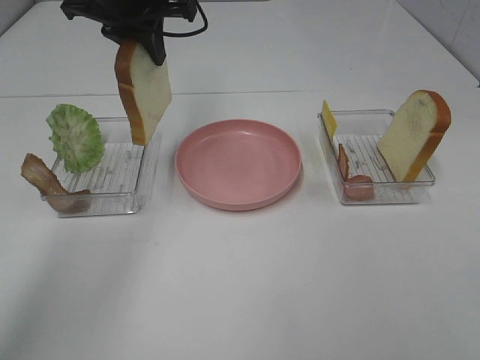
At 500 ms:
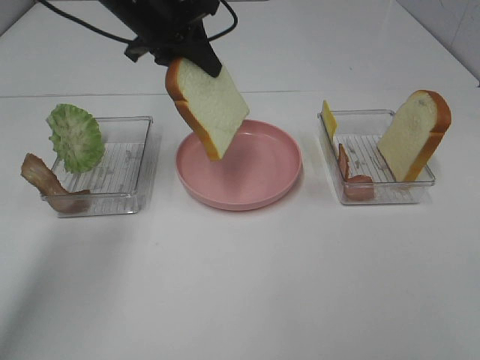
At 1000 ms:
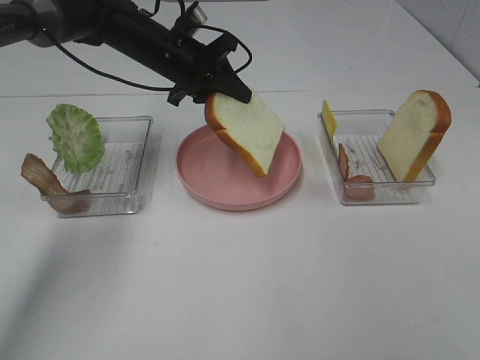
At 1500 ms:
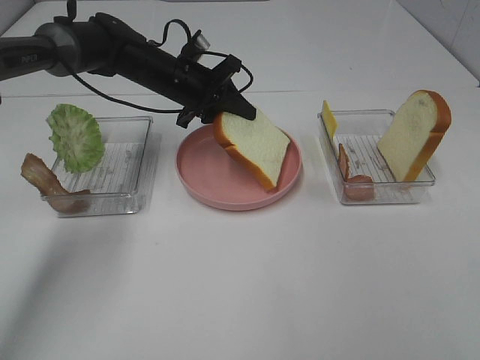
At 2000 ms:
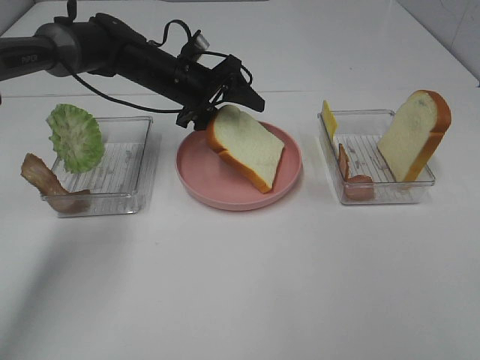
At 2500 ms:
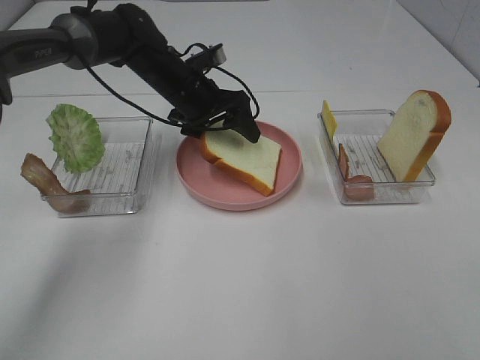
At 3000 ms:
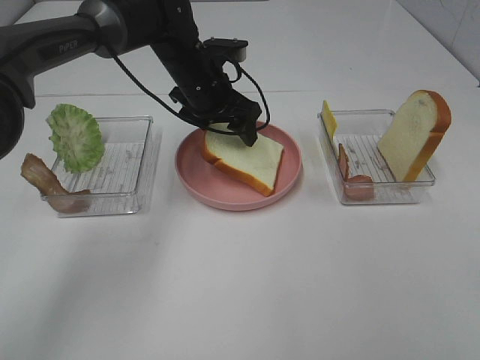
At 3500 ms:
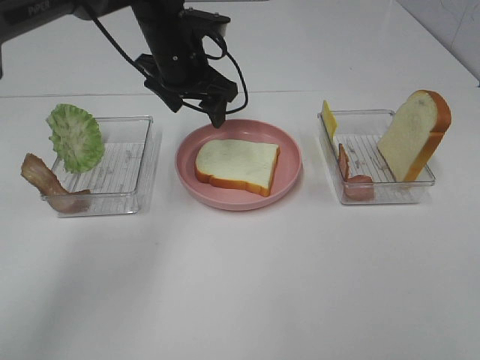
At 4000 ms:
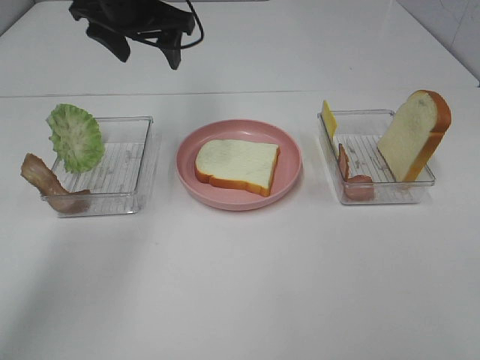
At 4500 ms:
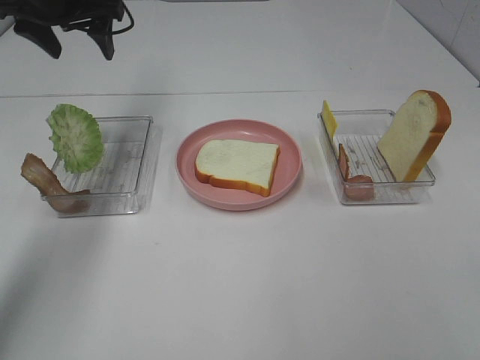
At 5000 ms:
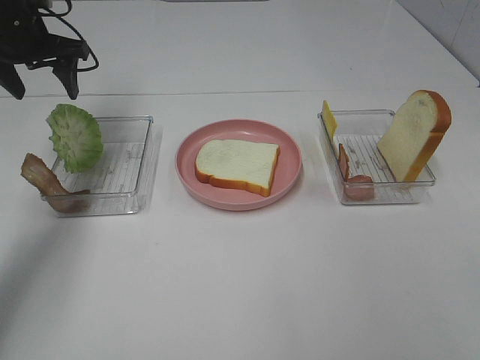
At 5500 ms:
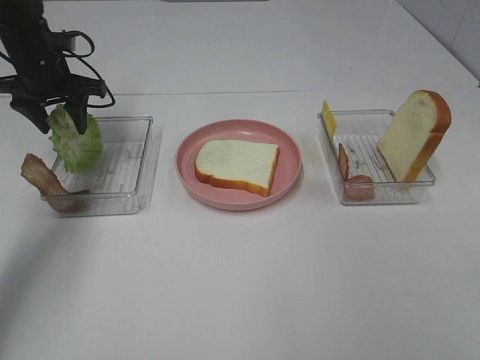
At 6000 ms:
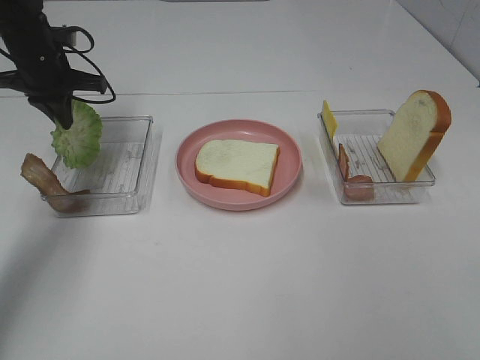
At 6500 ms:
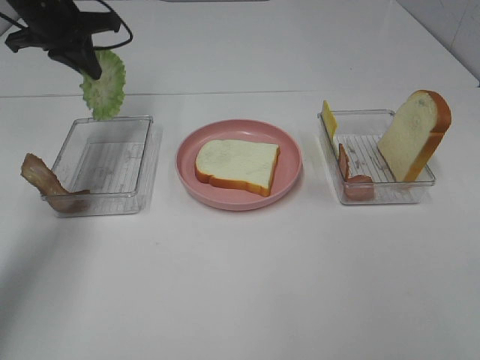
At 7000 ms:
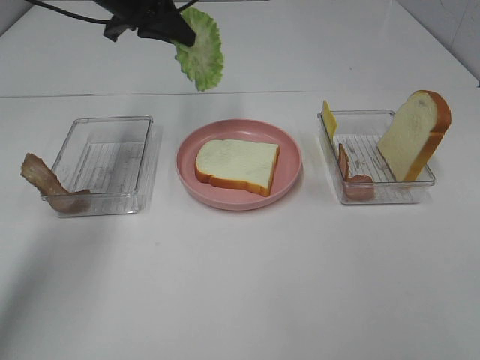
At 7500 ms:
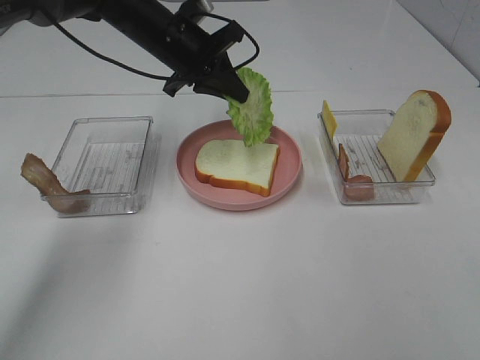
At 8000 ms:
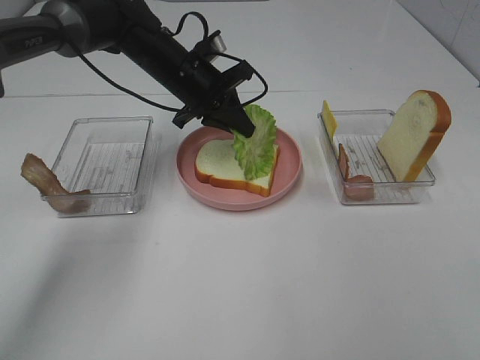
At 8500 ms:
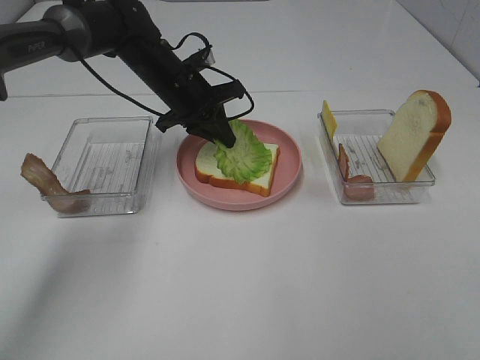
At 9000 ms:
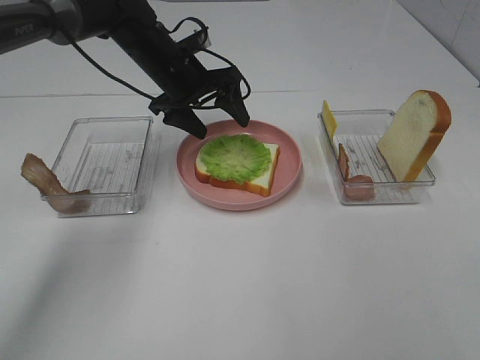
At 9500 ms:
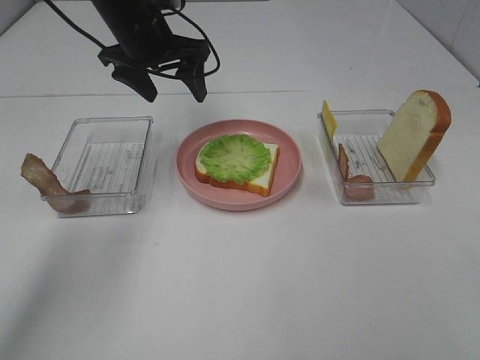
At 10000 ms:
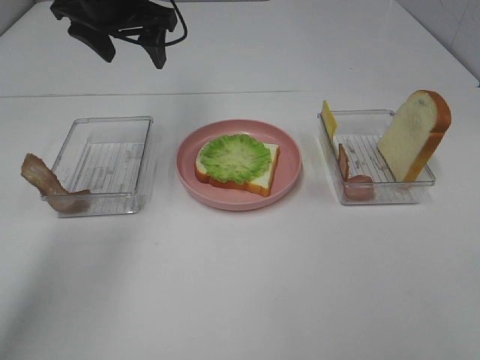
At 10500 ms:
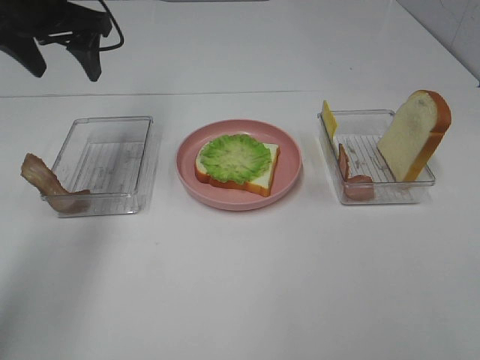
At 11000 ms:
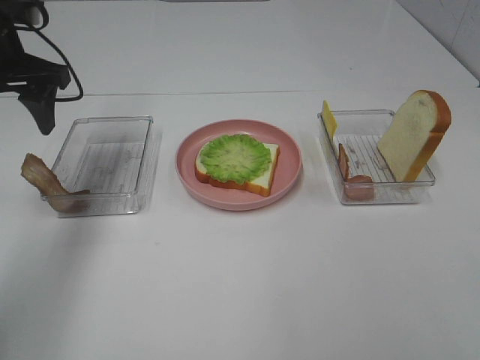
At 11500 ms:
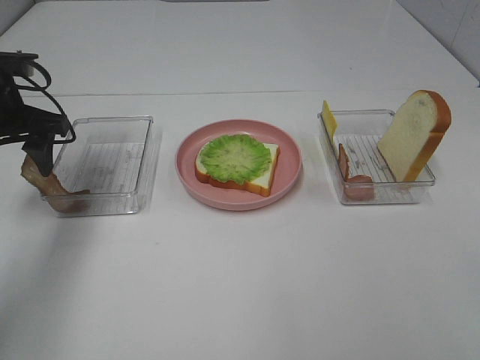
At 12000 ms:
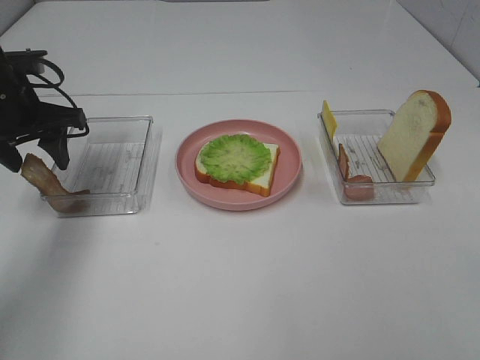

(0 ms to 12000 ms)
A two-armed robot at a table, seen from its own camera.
Task of the whole recording: Make sandwiches.
Step, 0 ms - 3000 ms: Left hand:place the bread slice on the plate.
Step, 3500 ms - 6000 ms: Left hand:grab the lettuce slice.
Step, 6500 ms - 9000 ms: Left hand:place the lettuce slice on the bread slice.
0 ms - 2000 ms: The left gripper moves downward, some 15 cm, and opens up.
2000 ms - 4000 ms: The left gripper is displaced upward by some 15 cm.
4000 ms - 6000 ms: The left gripper travels to the left and downward by roughly 15 cm, and closes.
6000 ms - 8000 ms: The left gripper travels to the right by approximately 20 cm.
8000 ms - 10000 ms: The left gripper travels upward and to the left by some 15 cm, and opens up.
10000 ms - 12000 ms: The left gripper moves to the left, downward and backward, some 15 cm.

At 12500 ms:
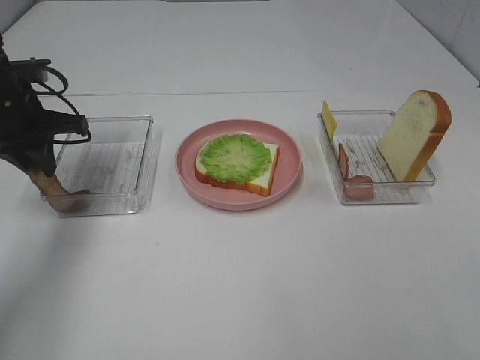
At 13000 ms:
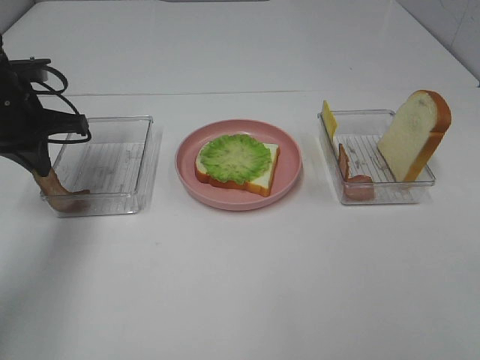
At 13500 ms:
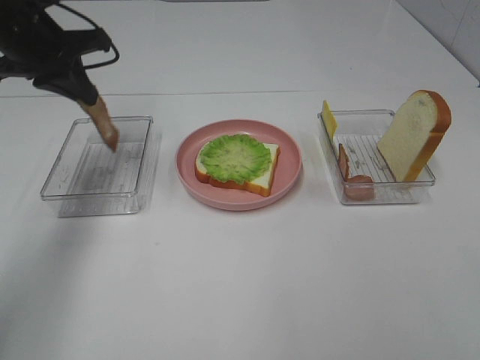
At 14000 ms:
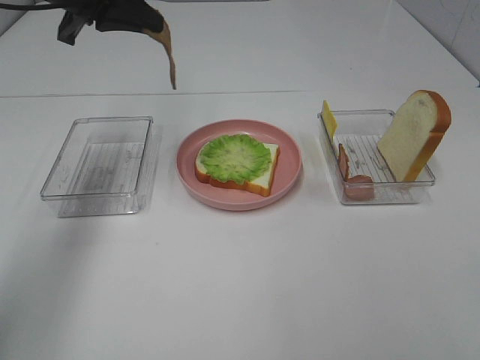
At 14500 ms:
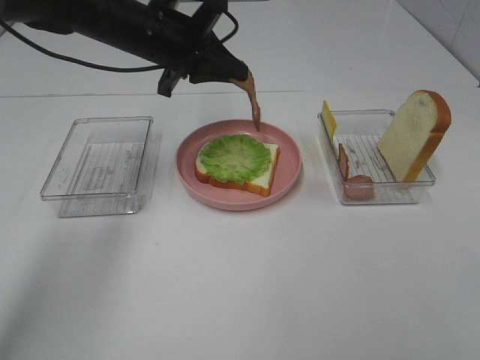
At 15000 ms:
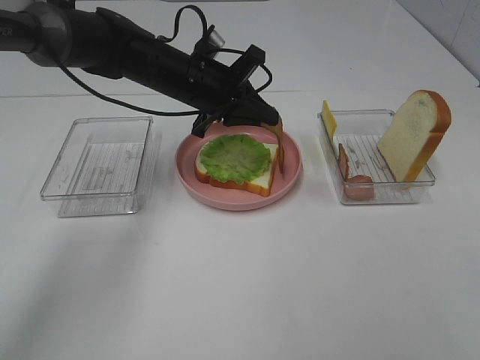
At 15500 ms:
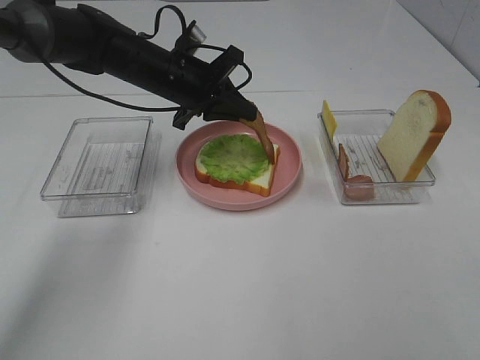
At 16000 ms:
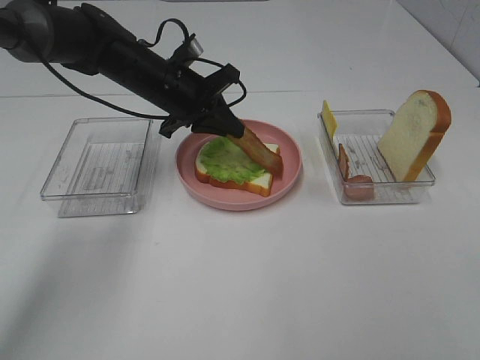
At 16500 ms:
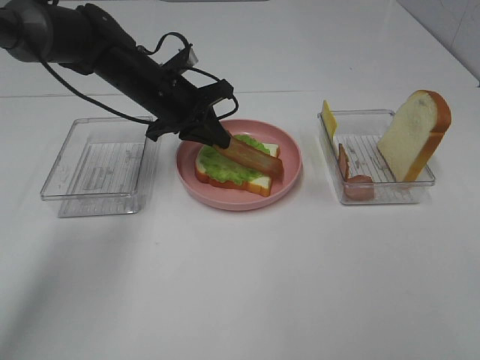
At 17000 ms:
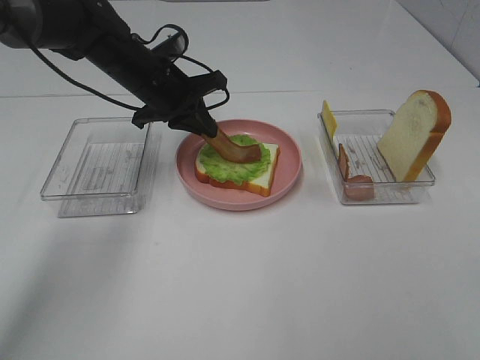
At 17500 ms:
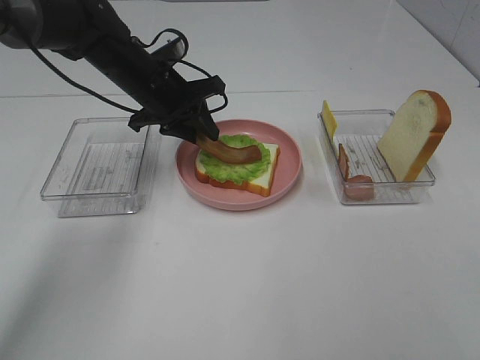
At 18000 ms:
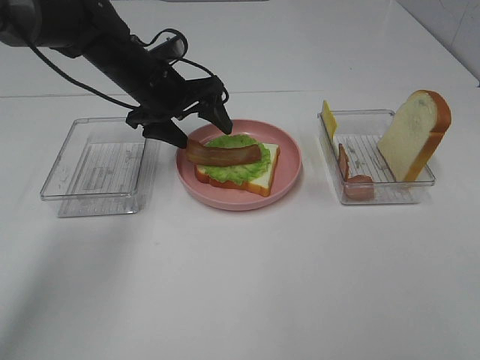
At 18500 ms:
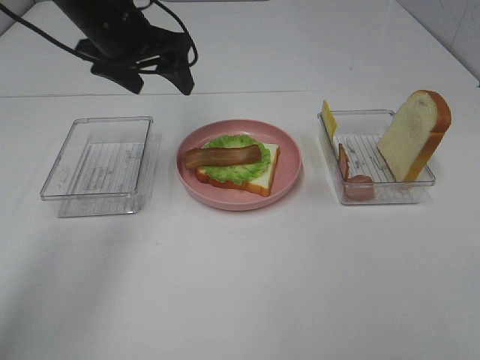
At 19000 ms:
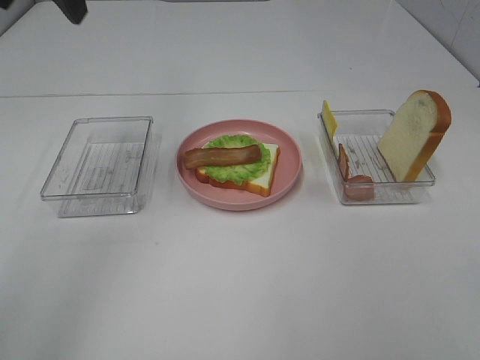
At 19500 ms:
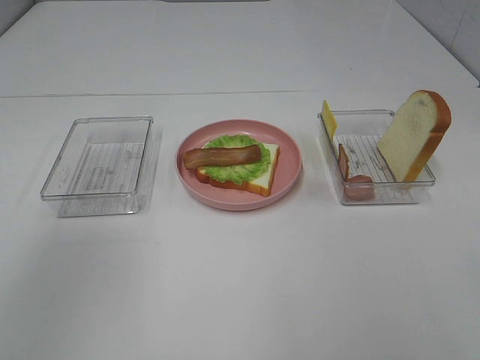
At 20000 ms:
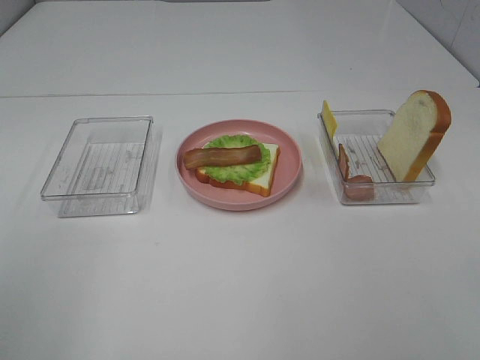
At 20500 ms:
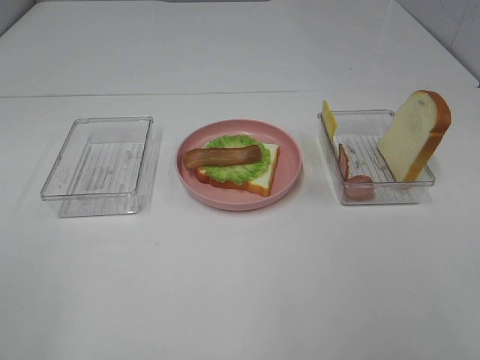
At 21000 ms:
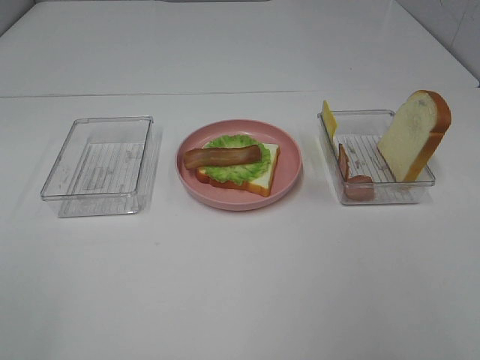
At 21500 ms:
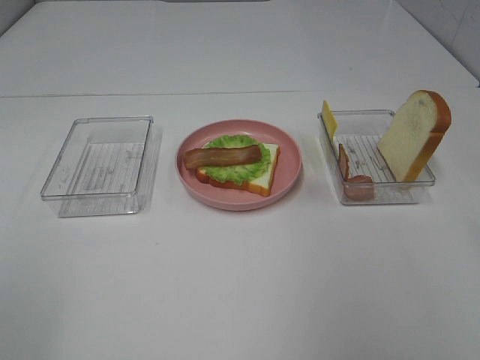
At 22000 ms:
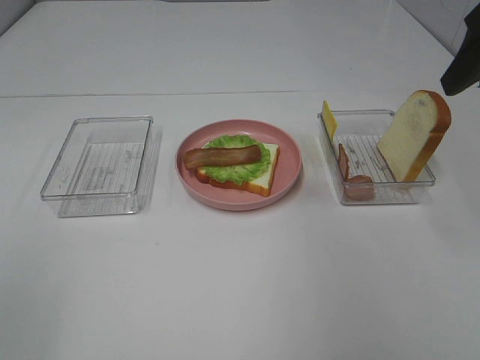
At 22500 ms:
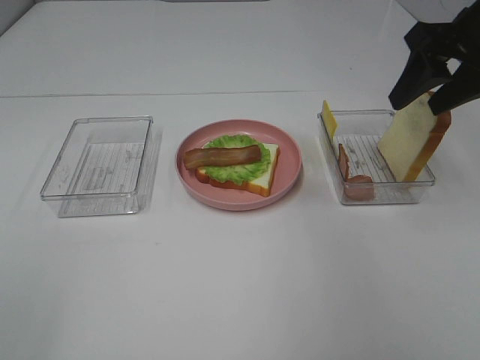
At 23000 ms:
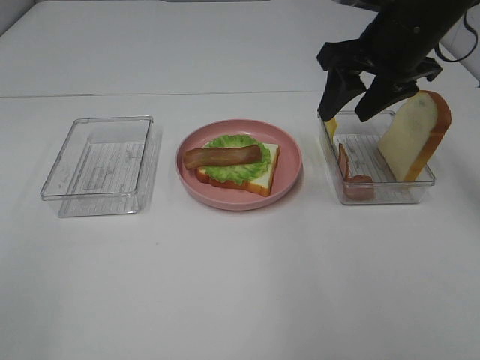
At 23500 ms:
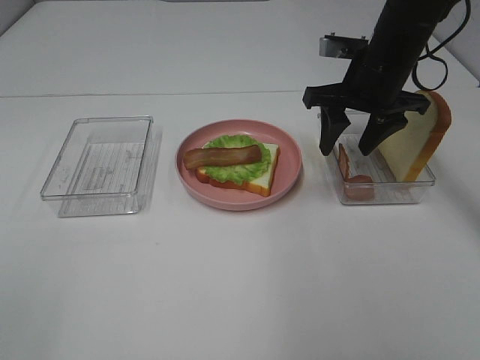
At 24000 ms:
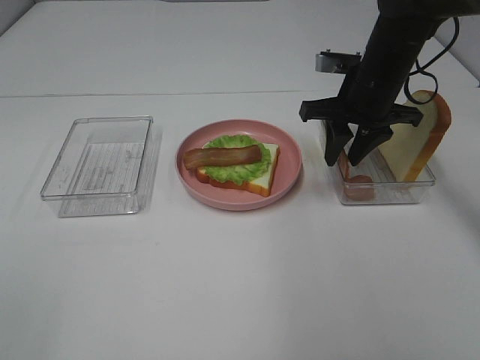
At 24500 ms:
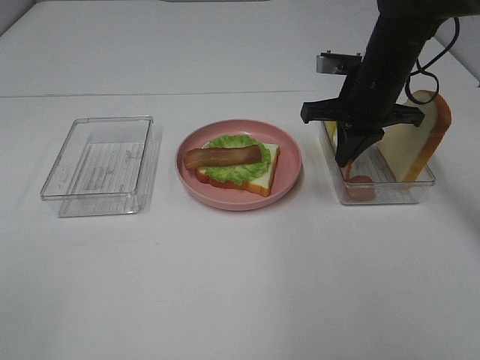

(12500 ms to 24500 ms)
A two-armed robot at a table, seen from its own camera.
Task of the whole recording: Make sandwiches.
Step, 13000 ms - 18000 ms: Left hand:place bacon on lettuce slice.
Step, 18500 ms - 24000 ms: Right hand:grab the bacon.
12500 ms - 14500 ms: The left gripper shifts approximately 15 cm to the right.
14500 ms - 16500 ms: The left gripper heads downward, covering some 5 cm.
16500 ms - 18500 ms: The left gripper moves upward, roughly 10 cm, and opens up.
18500 ms - 20500 ms: The left gripper moves backward, roughly 40 cm.
20500 ms - 22500 ms: The right gripper travels forward by roughly 35 cm.
22500 ms - 24500 ms: The right gripper moves downward, to the left and forward, roughly 15 cm, and closes.

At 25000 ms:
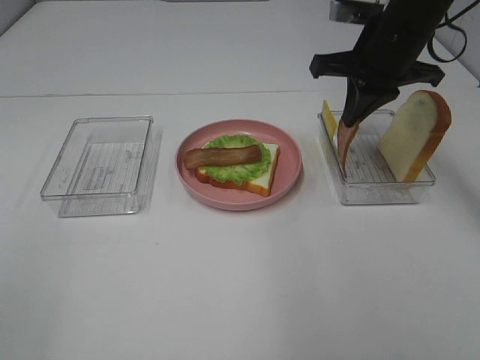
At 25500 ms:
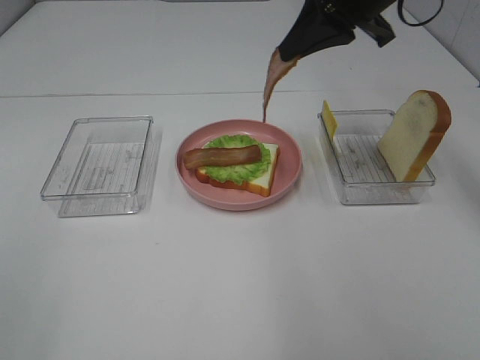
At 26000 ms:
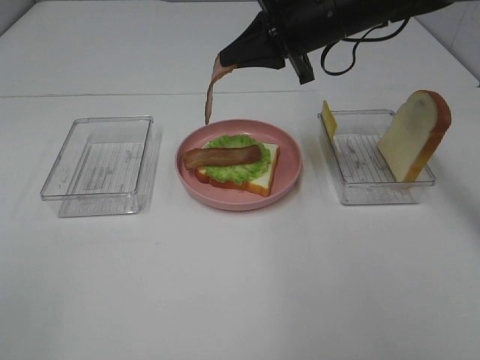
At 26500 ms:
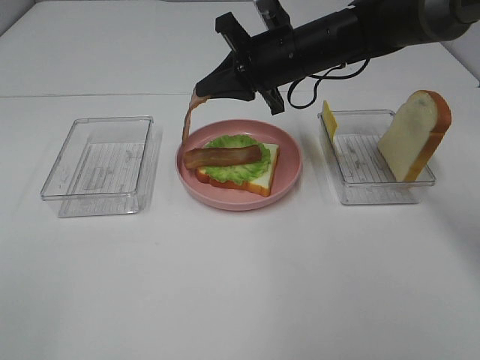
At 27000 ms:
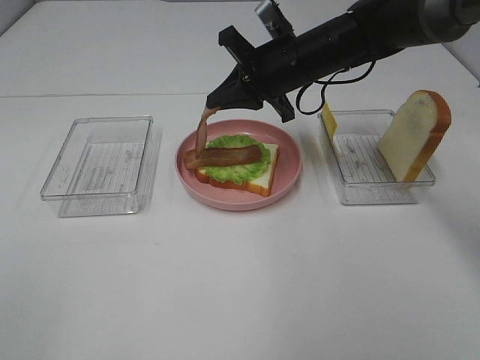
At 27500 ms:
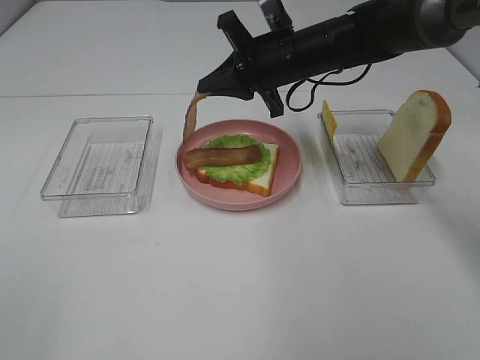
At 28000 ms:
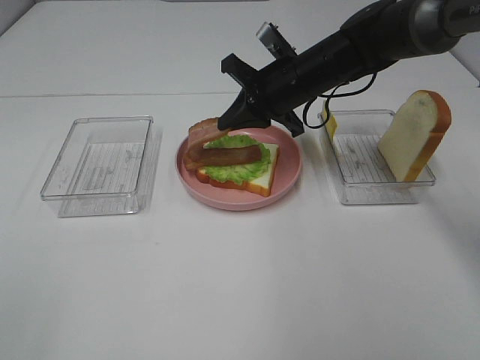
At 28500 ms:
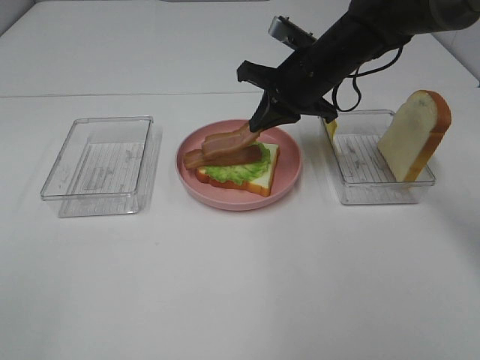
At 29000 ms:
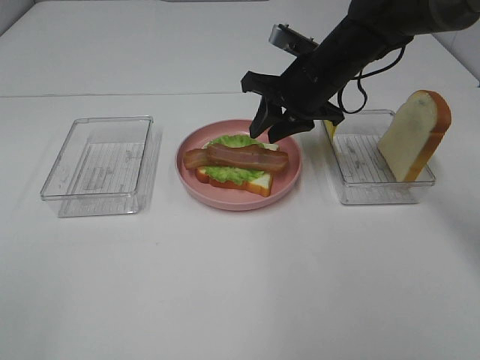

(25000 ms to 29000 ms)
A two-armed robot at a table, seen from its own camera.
Task of the whole recording: Make sandwiches.
Step, 25000 ms - 29000 ms: Right hand:place bacon on bacon.
25000 ms - 27000 ms: The right gripper shifts about 10 cm to the left and downward.
27000 ms - 29000 ms: The right gripper opens up.
